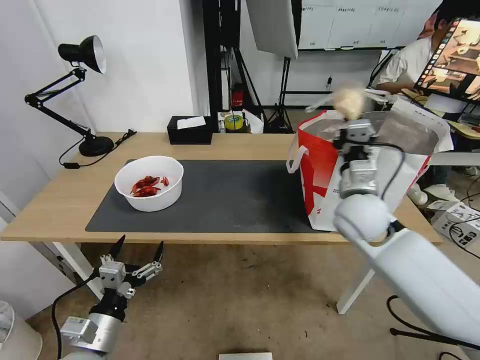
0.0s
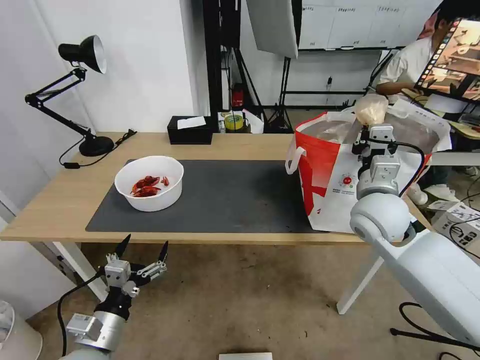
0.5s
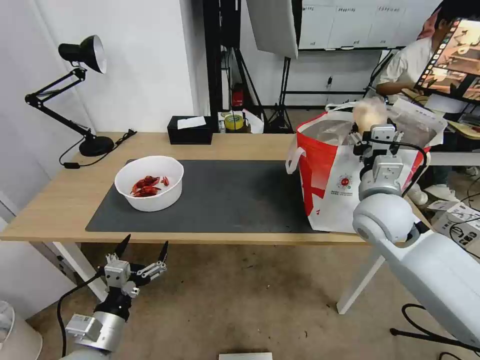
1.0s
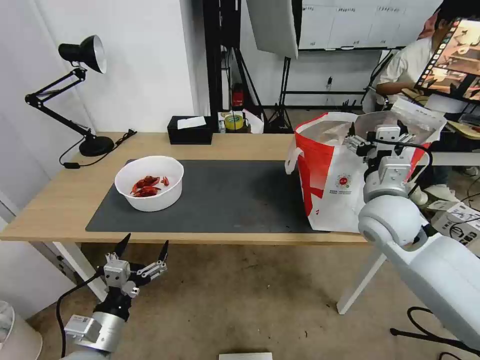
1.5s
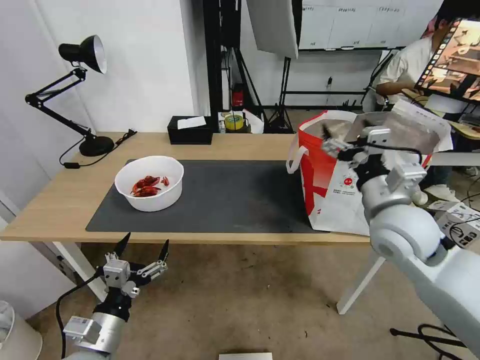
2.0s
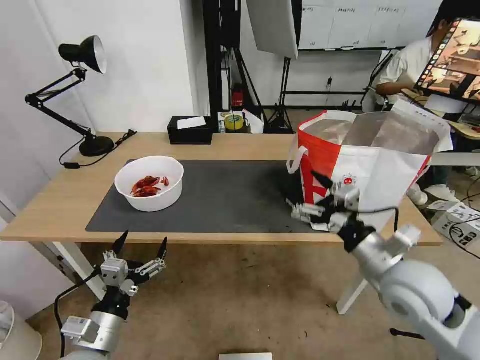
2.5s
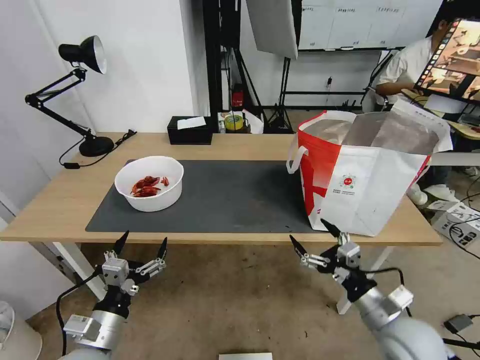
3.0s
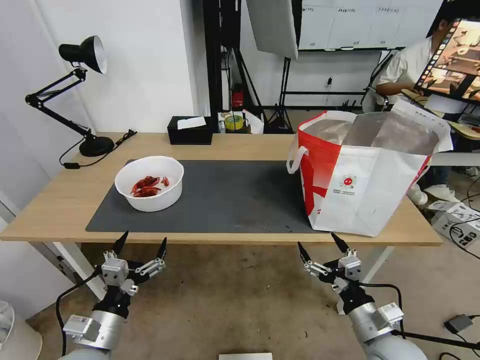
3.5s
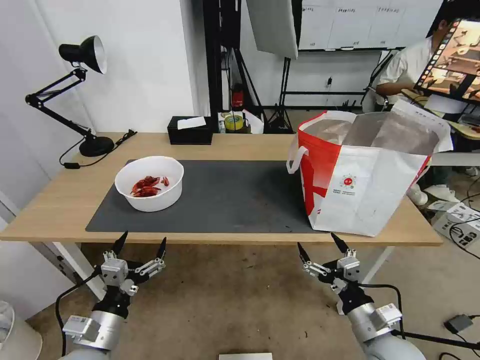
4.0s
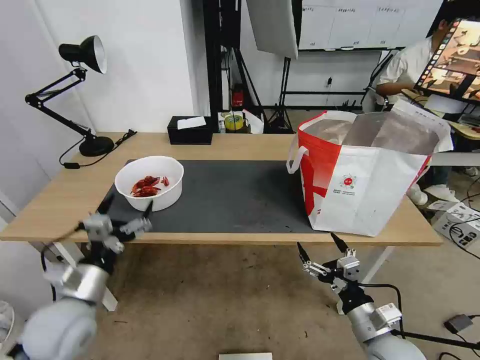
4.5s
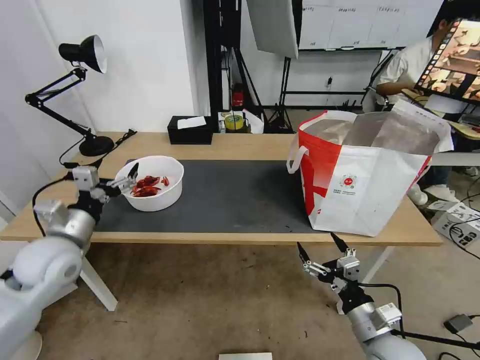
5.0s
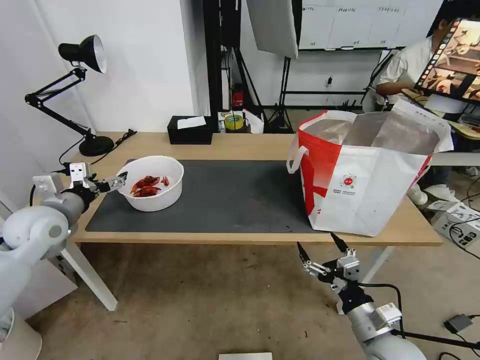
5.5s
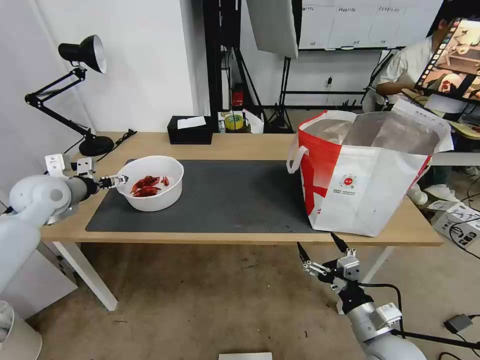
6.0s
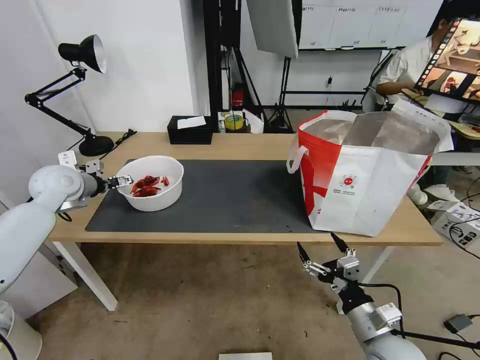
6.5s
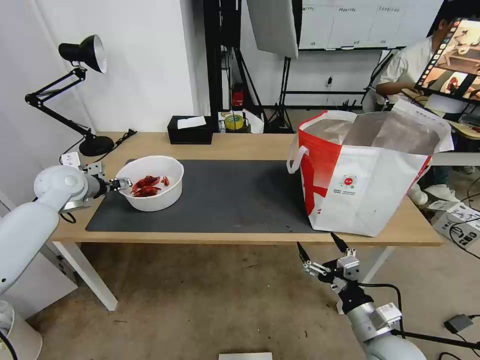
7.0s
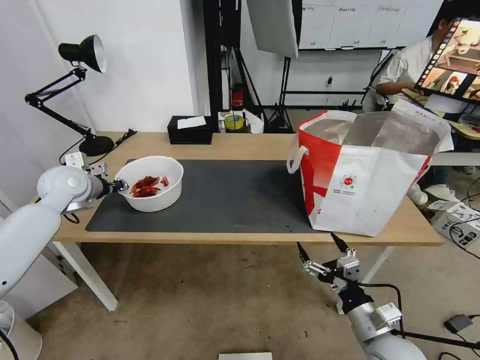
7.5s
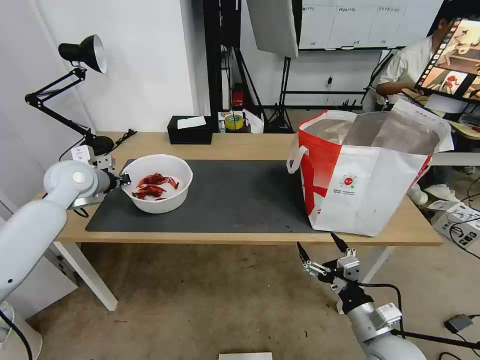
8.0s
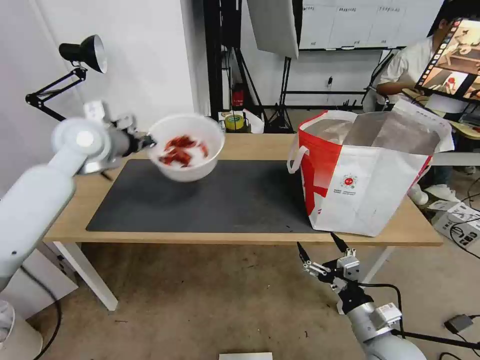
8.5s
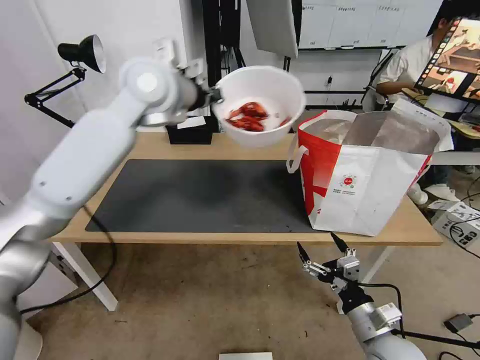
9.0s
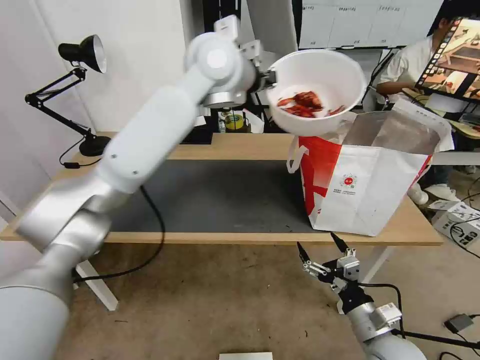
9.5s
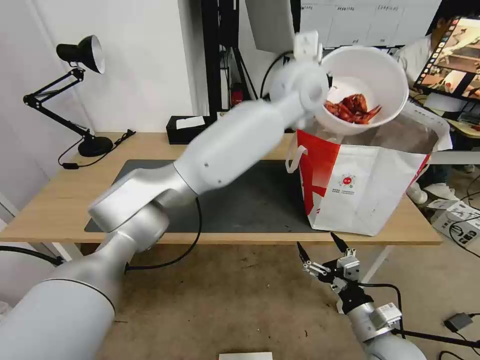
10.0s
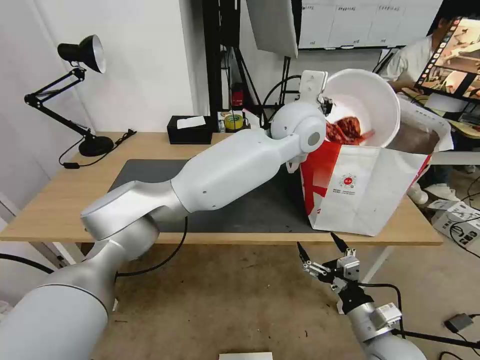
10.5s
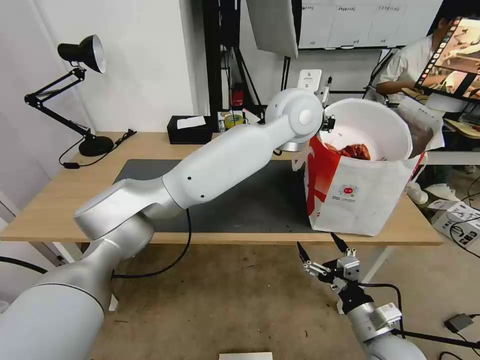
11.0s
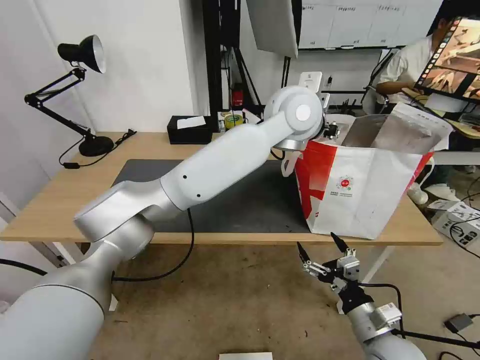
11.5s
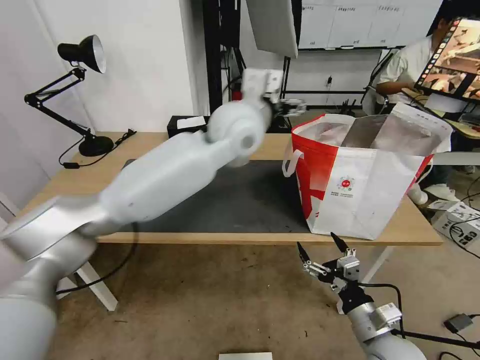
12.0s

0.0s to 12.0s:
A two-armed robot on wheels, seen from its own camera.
Task of the whole recording: Pick up the trash from the table and place it into the takeout bag.
0.0s to 2.0s: The right gripper goes about 5 cm backward, and opens.
2.0s to 4.0s: The right gripper moves downward and backward, approximately 25 cm.
4.0s to 6.0s: The left gripper travels forward, upward and to the left by some 35 cm.
6.0s to 8.0s: The left gripper travels to the right by roughly 5 cm, and closes its fingers.
8.0s to 10.0s: The left gripper heads to the right, covering roughly 50 cm.
10.0s to 12.0s: The left gripper travels to the left by approximately 10 cm, and opens its fingers.

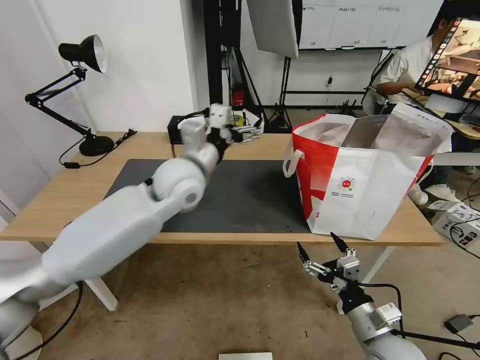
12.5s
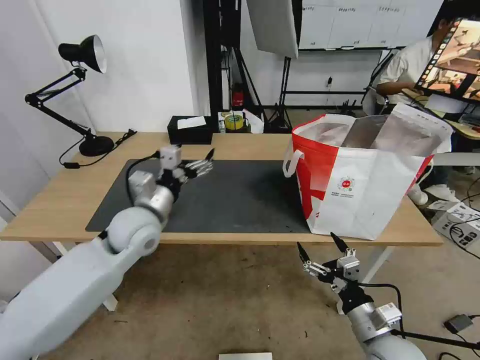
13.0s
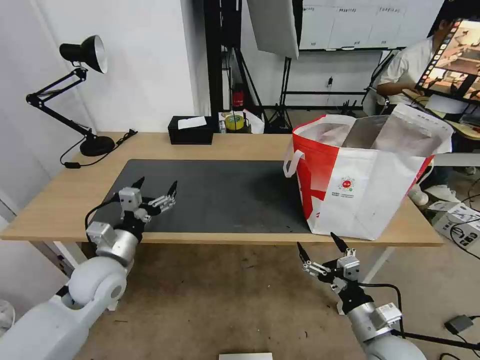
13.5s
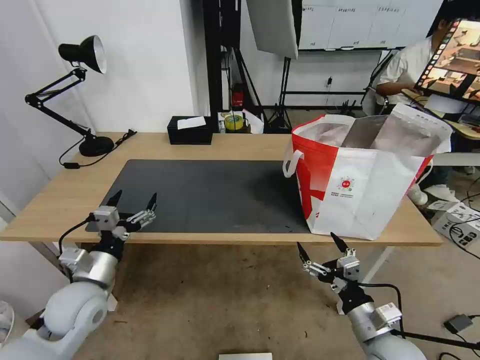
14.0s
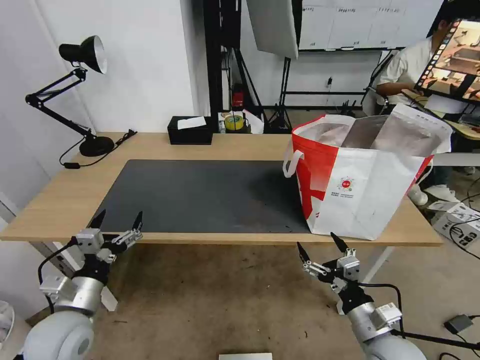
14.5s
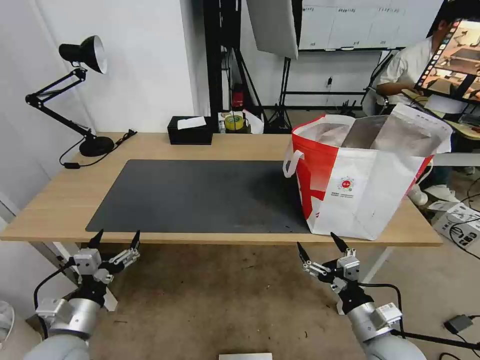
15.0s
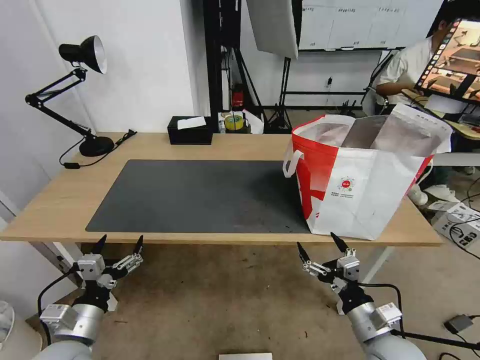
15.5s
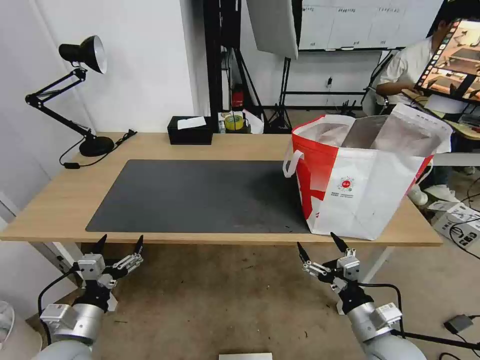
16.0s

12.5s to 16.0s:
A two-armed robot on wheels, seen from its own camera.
Task of the whole recording: Pick up the trash from the table and place it into the takeout bag.
12.5s to 14.5s: The left gripper is displaced backward, to the left and downward by about 35 cm.
14.5s to 16.0s: The left gripper moves approximately 5 cm.

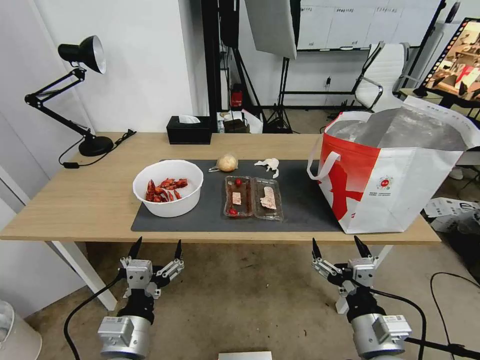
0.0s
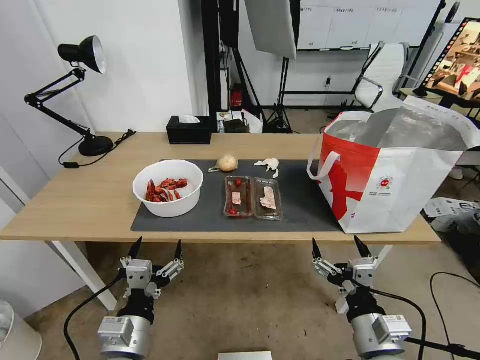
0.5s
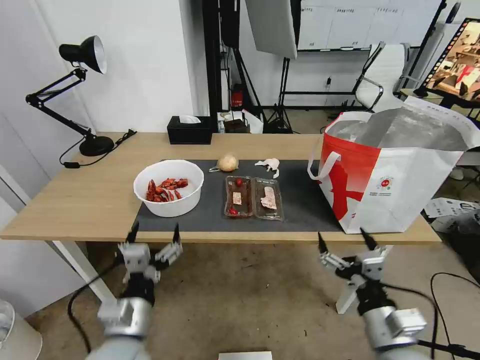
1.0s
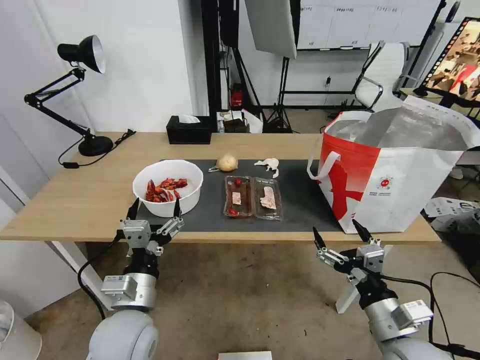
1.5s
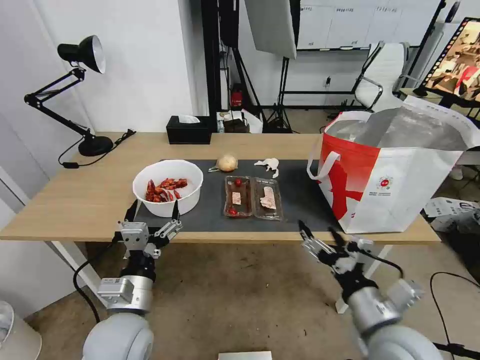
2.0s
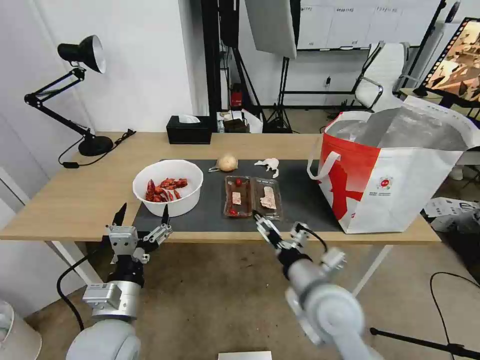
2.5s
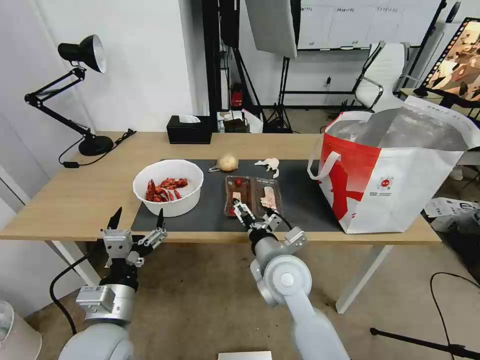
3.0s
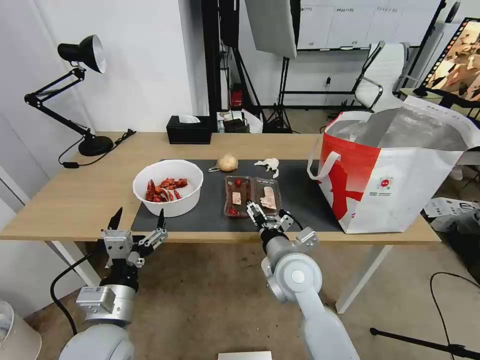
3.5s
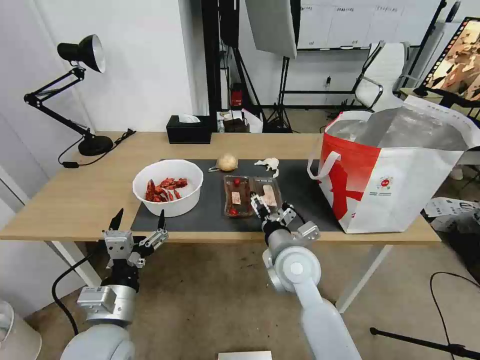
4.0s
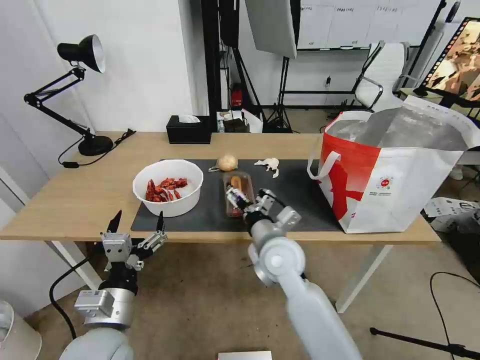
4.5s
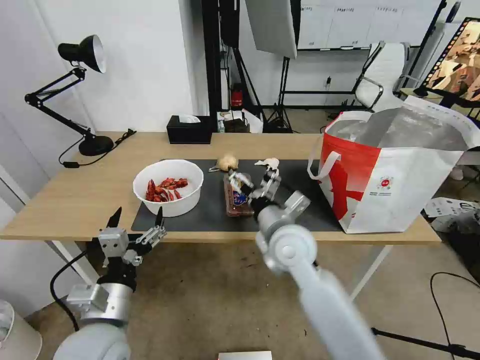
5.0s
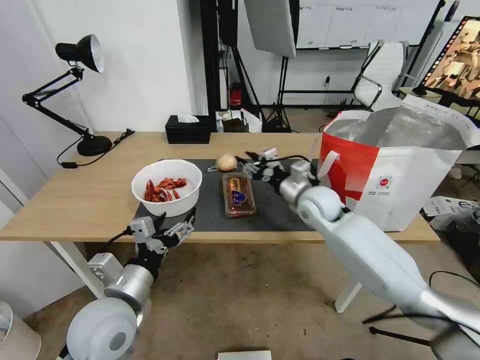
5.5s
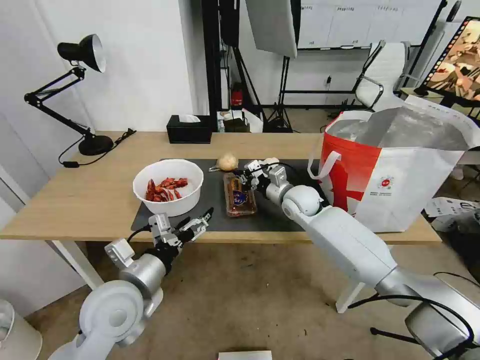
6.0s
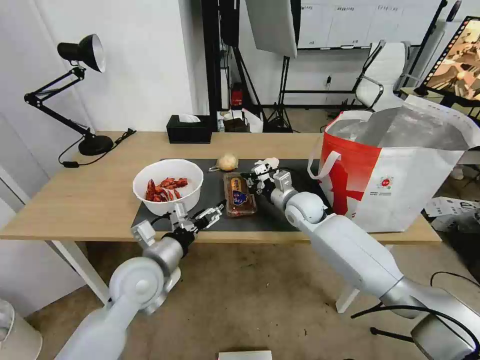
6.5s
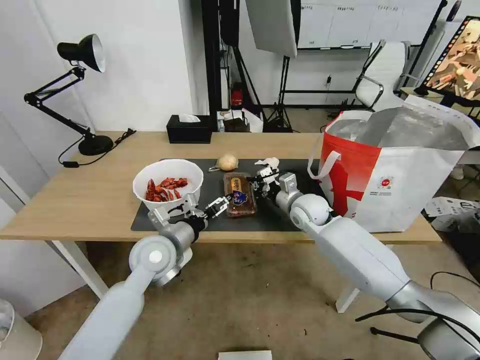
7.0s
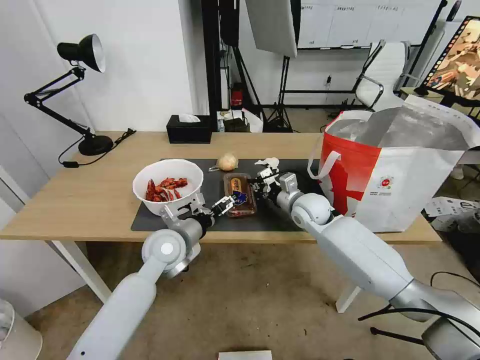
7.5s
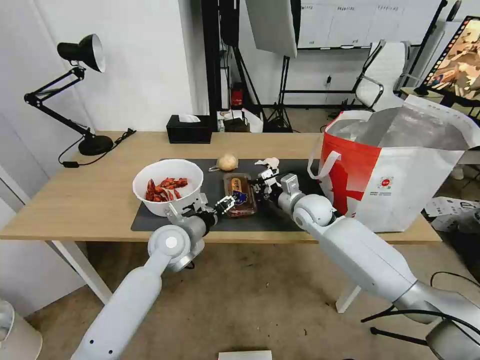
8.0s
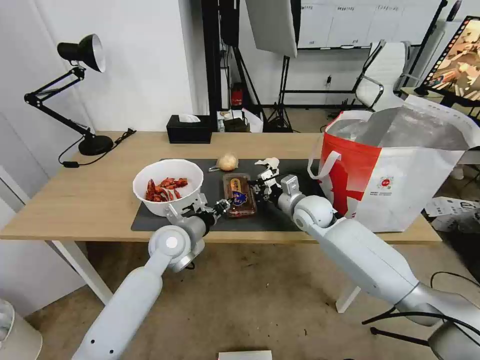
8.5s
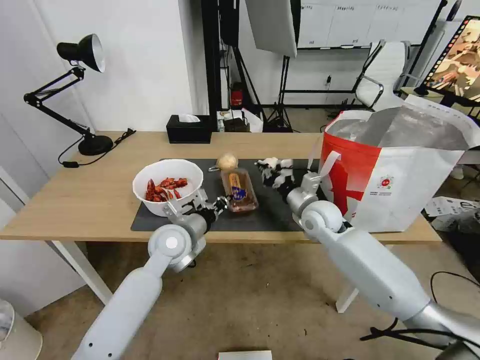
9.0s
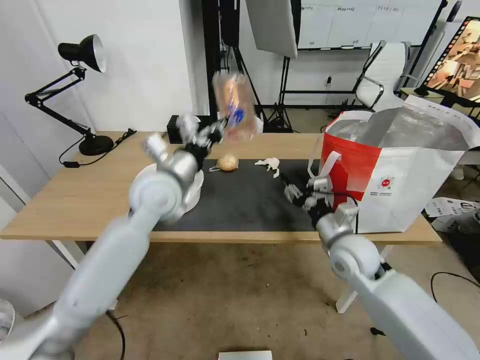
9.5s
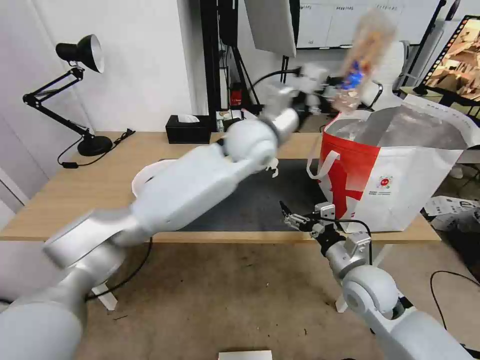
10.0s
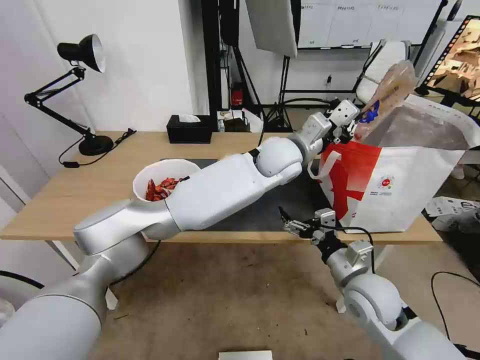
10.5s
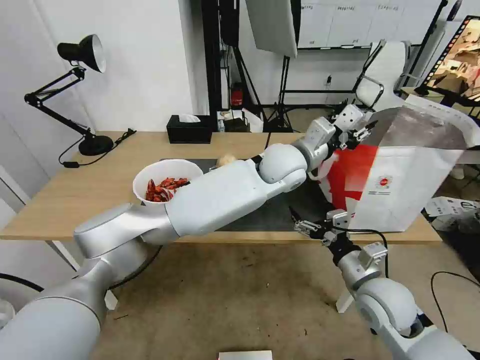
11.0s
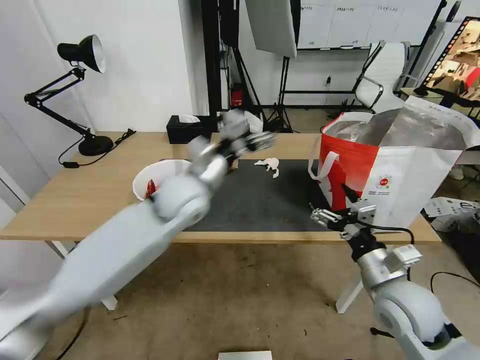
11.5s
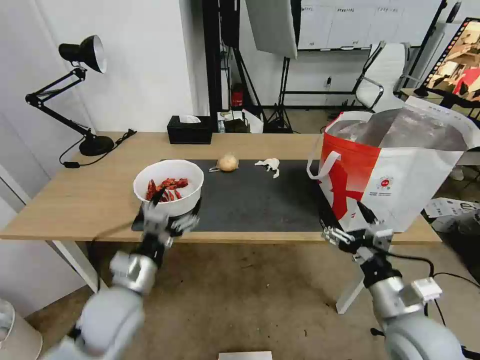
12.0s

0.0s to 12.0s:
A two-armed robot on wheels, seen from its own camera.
Task of the whole recording: Pick up the trash from the table and place it into the takeout bag.
2.0s to 4.0s: The right gripper is displaced forward and to the left by roughly 20 cm.
4.0s to 6.0s: The right gripper shifts approximately 20 cm forward, and closes. The left gripper moves forward, approximately 5 cm.
6.0s to 8.0s: The left gripper heads forward, covering some 15 cm.
8.0s to 10.0s: The right gripper shifts approximately 20 cm backward, and opens. Meanwhile the left gripper travels upward, to the right and forward by approximately 30 cm, and closes its fingers.
10.0s to 12.0s: The right gripper goes roughly 10 cm backward; the left gripper moves to the left, backward and downward, about 40 cm, and opens.
